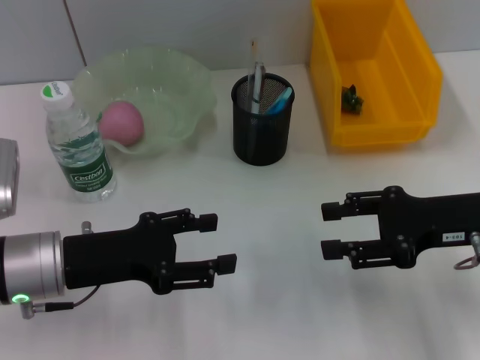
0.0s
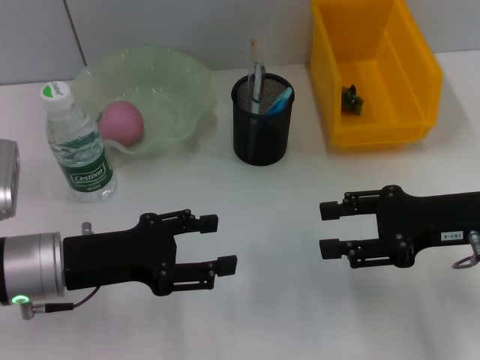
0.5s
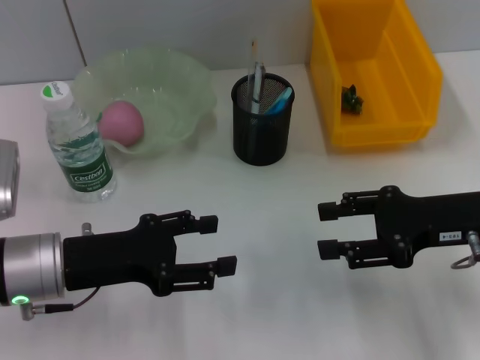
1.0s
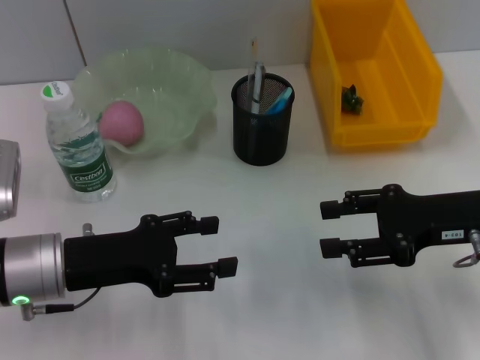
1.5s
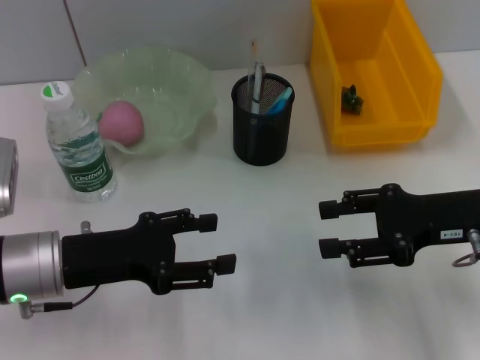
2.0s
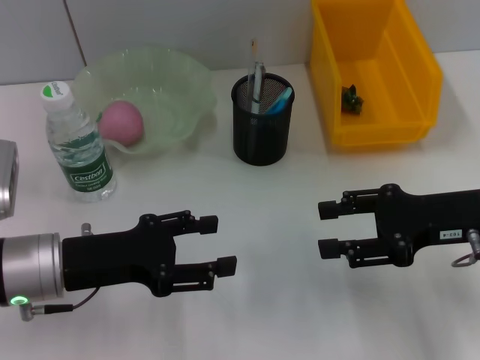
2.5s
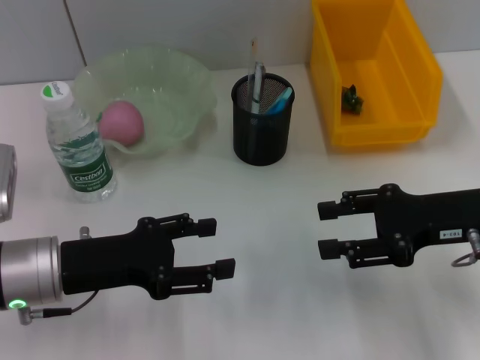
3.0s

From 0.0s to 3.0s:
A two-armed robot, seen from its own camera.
From 0.0s to 3.0s: Both grippers stay about where they are.
